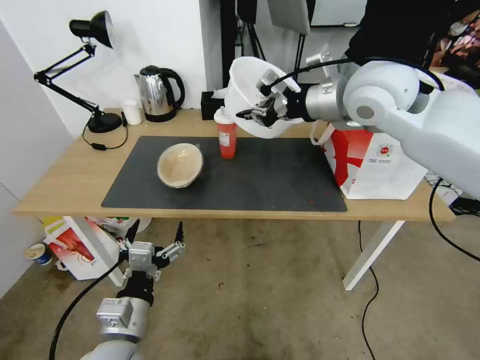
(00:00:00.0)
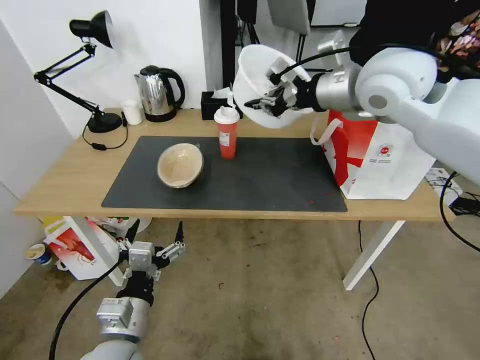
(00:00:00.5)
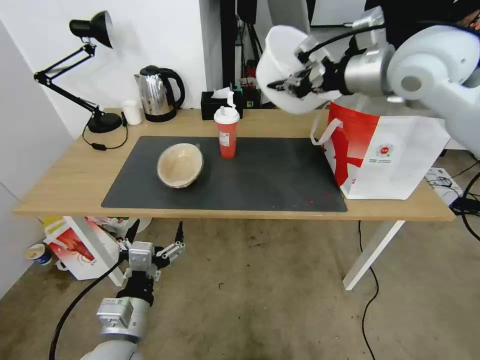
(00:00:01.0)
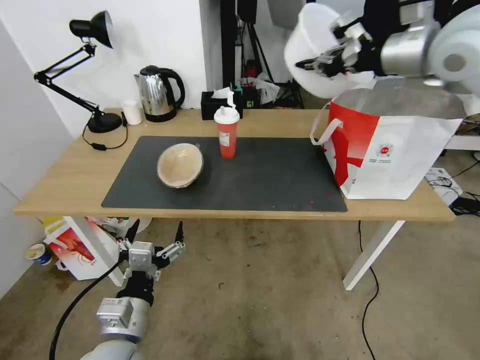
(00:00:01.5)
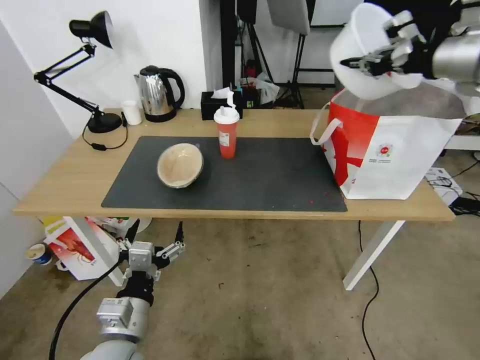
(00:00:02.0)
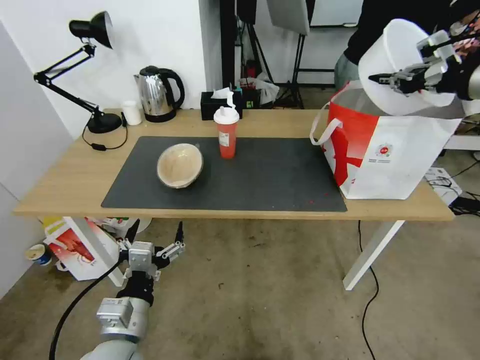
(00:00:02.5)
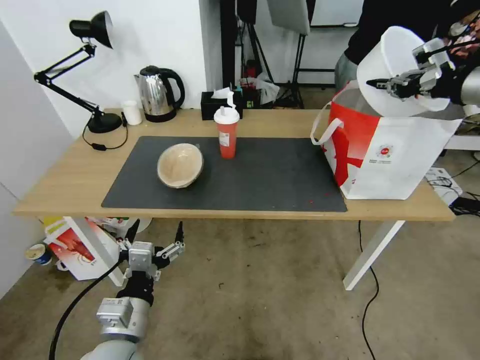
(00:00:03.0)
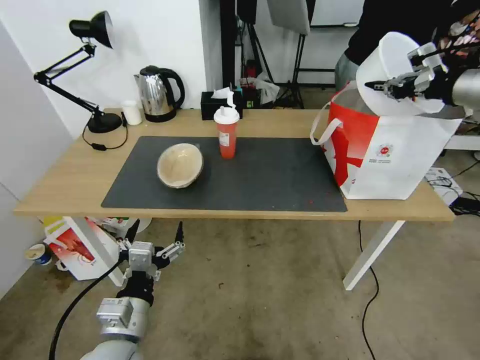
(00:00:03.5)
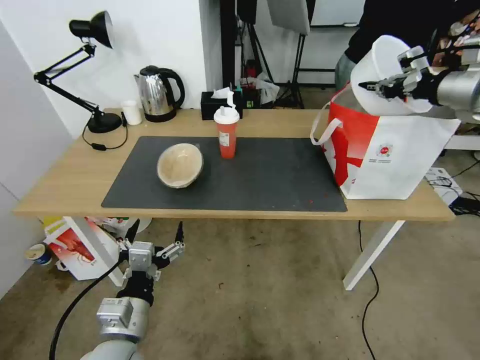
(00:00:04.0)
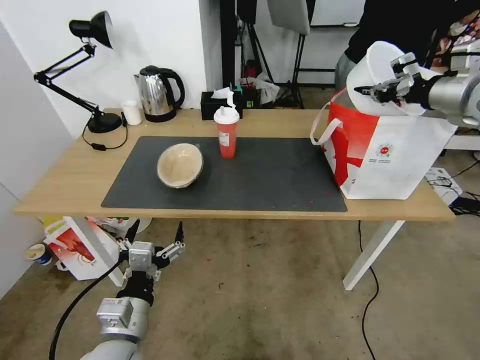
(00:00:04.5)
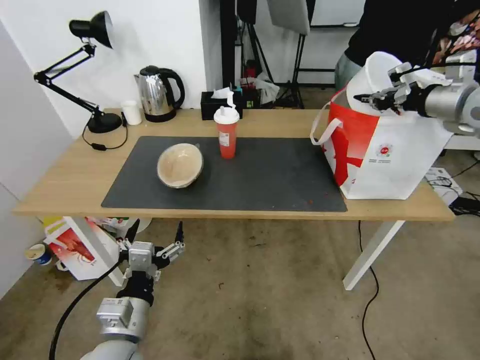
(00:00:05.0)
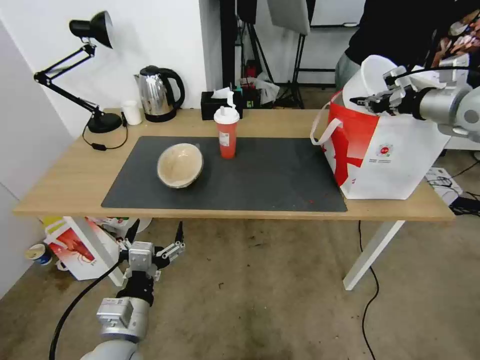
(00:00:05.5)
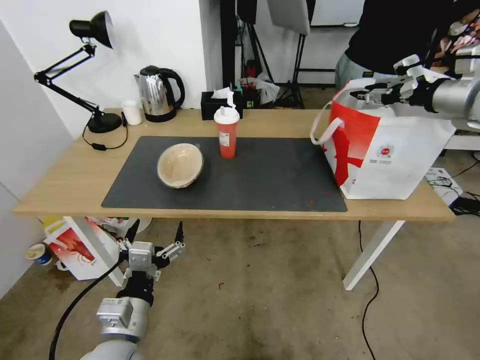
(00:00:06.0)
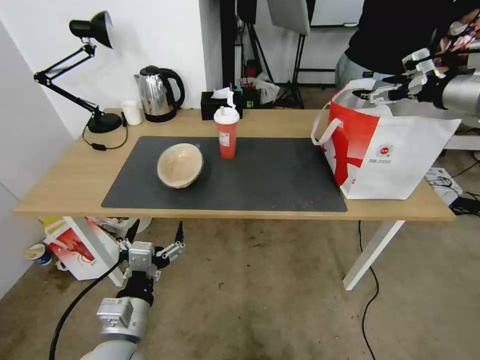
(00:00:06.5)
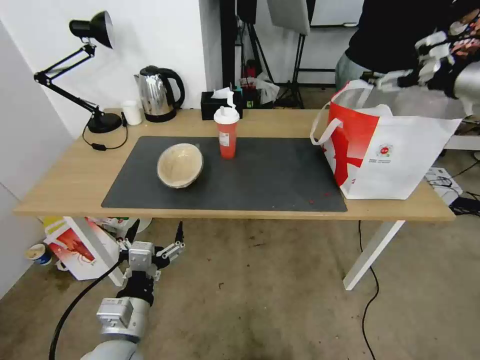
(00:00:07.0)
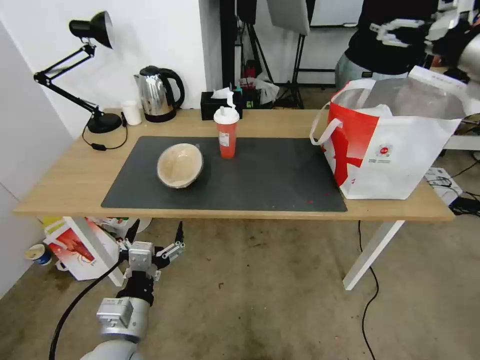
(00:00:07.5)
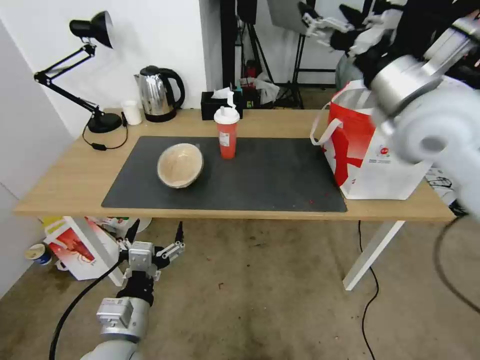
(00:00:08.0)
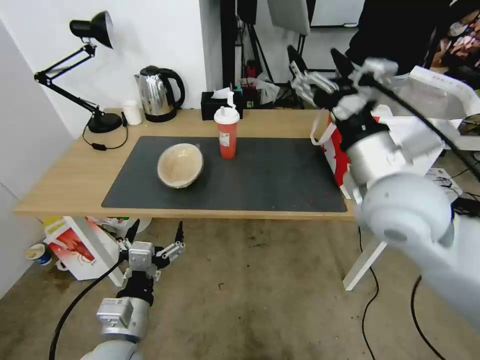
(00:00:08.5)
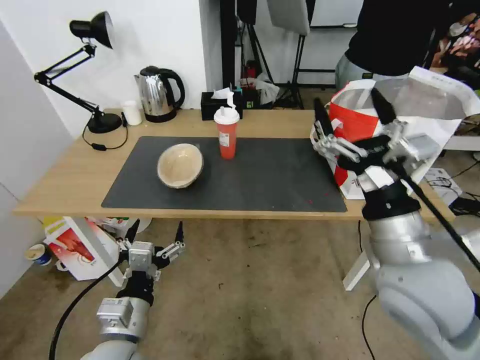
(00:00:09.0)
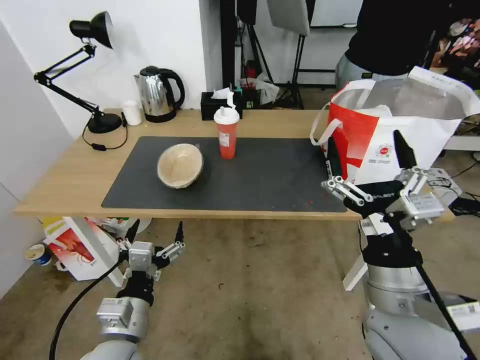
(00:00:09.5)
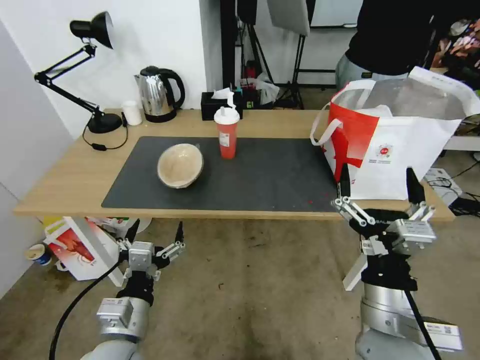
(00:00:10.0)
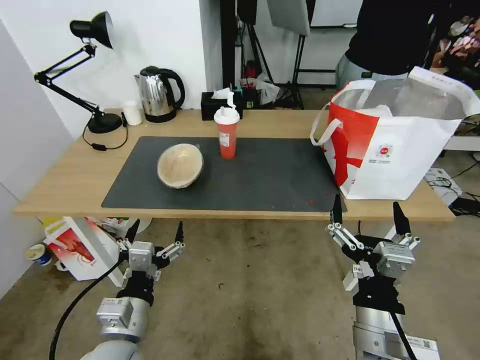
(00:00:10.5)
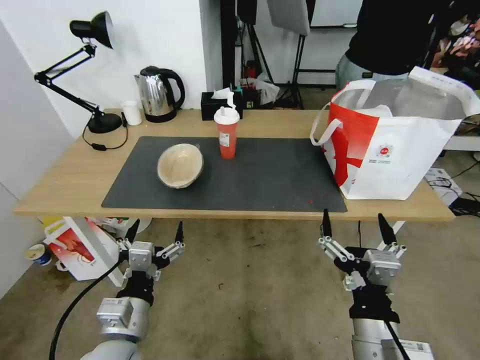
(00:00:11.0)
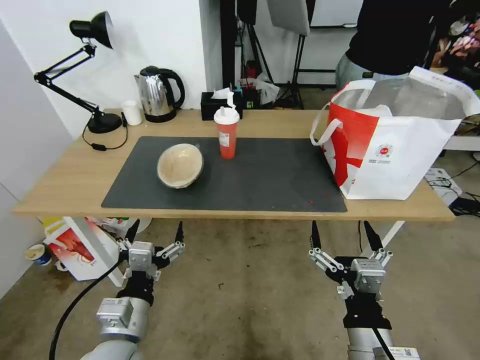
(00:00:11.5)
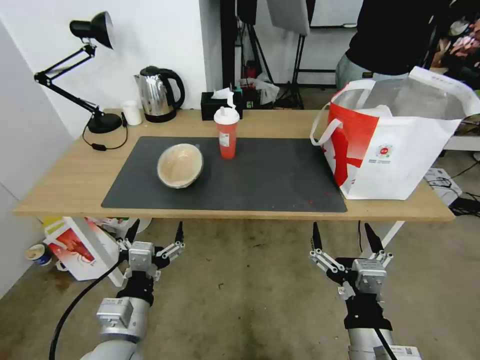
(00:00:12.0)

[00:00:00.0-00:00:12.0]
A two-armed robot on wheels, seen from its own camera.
Task of the whole recording: Pick up the trash from the table and place it into the takeout bag.
00:00:00.0 to 00:00:02.0: The right gripper shifts some 20 cm to the right.
00:00:02.0 to 00:00:04.0: The right gripper heads downward and to the right, covering roughly 10 cm.
00:00:04.0 to 00:00:06.0: The right gripper opens.
00:00:06.0 to 00:00:08.0: The right gripper shifts some 20 cm to the left and backward, and opens its fingers.
00:00:08.0 to 00:00:10.0: The right gripper travels downward and backward by approximately 35 cm.
00:00:10.0 to 00:00:12.0: The right gripper travels backward by about 5 cm.

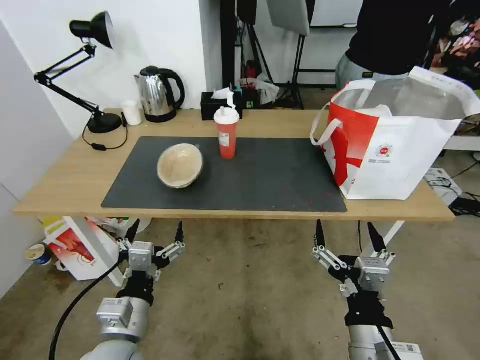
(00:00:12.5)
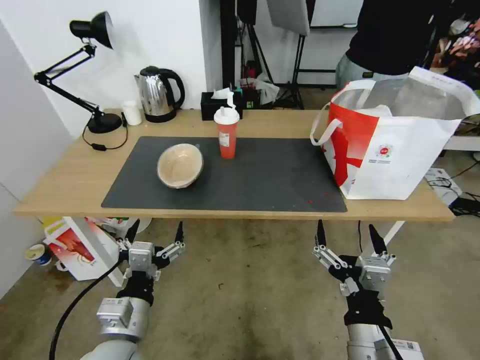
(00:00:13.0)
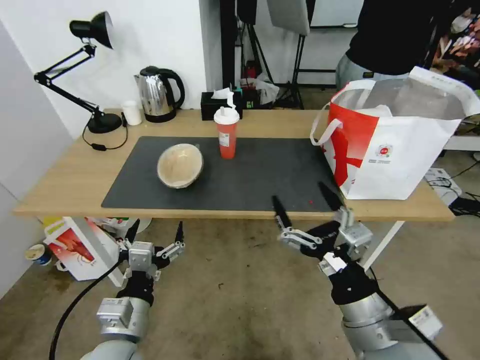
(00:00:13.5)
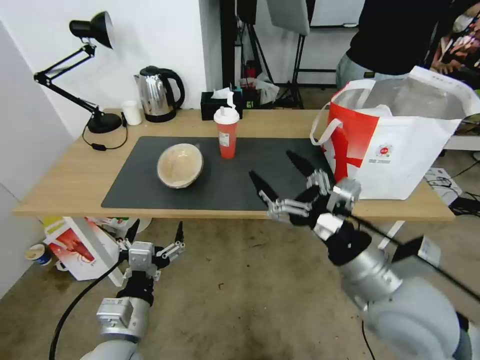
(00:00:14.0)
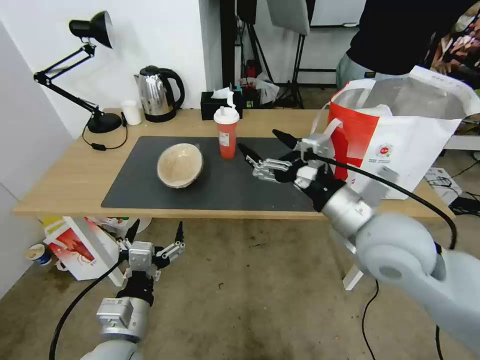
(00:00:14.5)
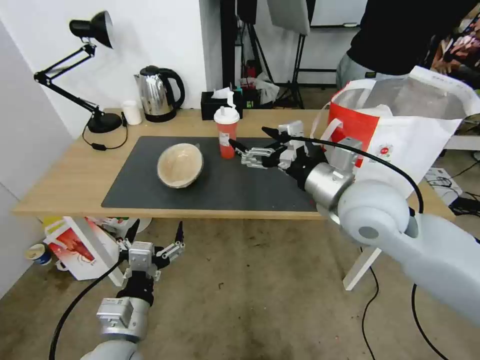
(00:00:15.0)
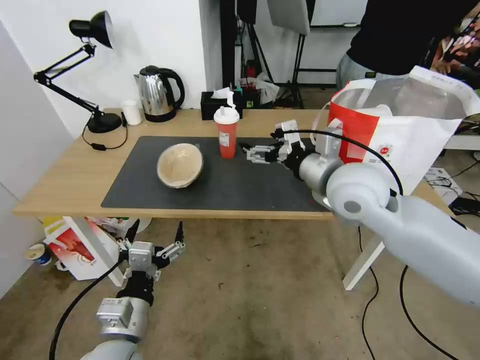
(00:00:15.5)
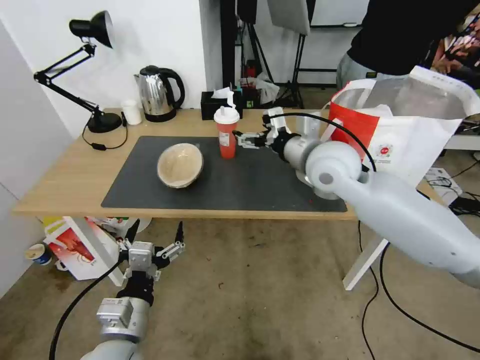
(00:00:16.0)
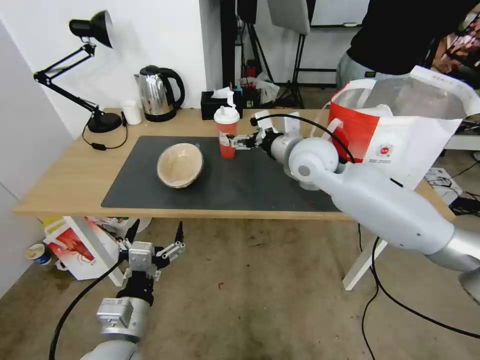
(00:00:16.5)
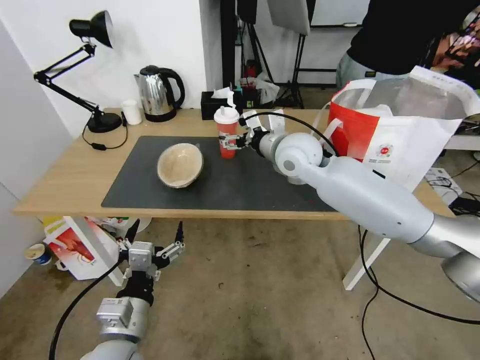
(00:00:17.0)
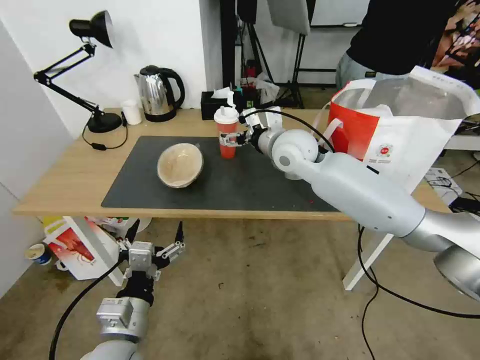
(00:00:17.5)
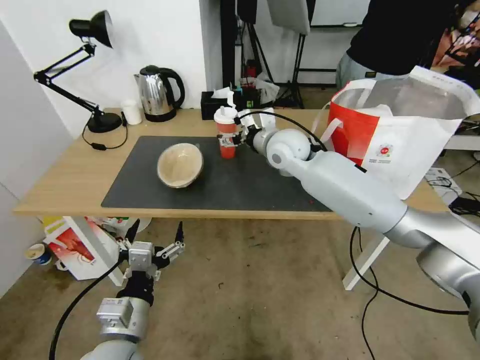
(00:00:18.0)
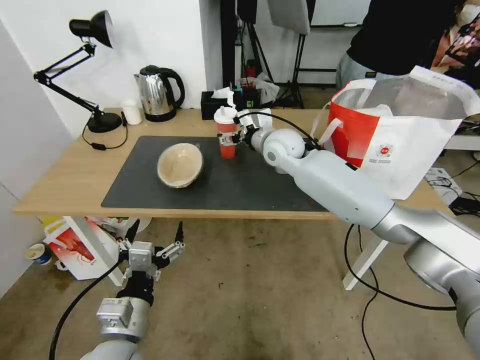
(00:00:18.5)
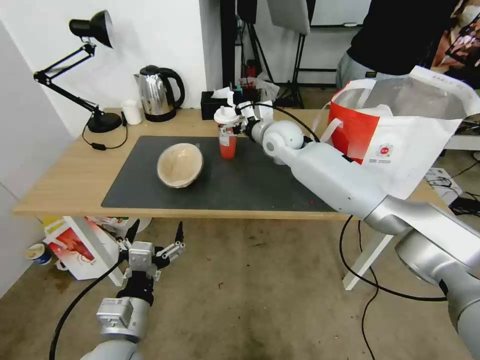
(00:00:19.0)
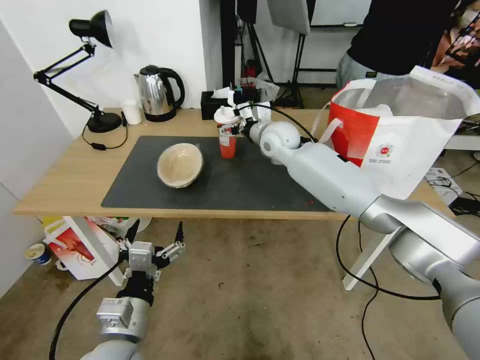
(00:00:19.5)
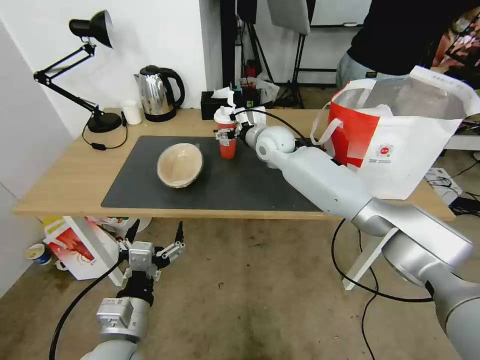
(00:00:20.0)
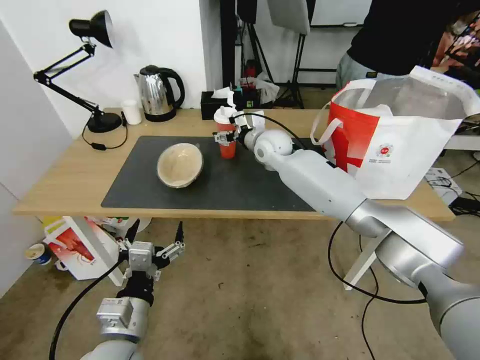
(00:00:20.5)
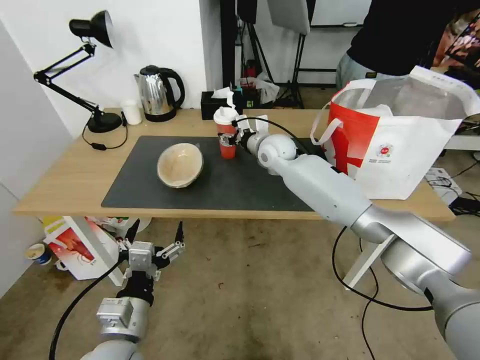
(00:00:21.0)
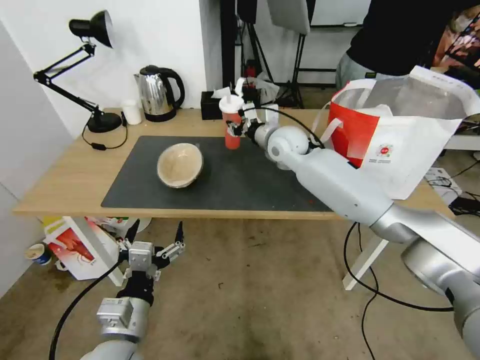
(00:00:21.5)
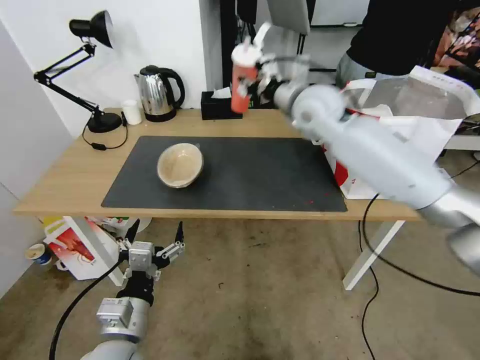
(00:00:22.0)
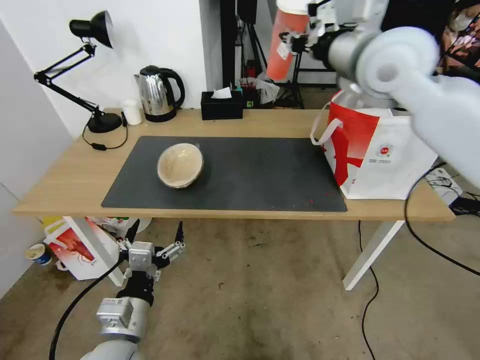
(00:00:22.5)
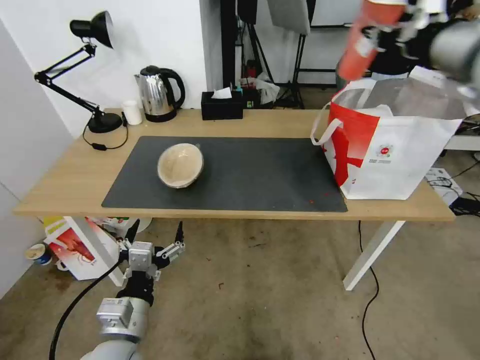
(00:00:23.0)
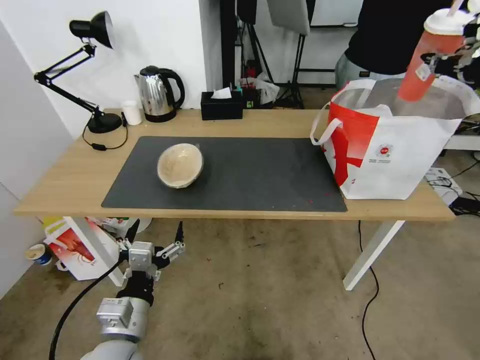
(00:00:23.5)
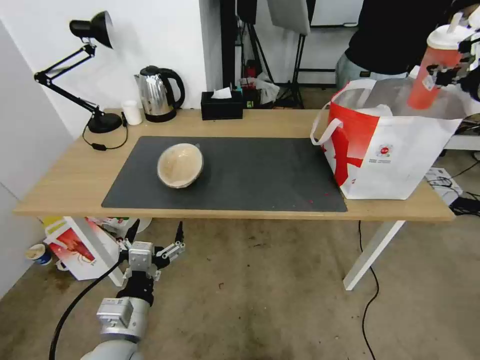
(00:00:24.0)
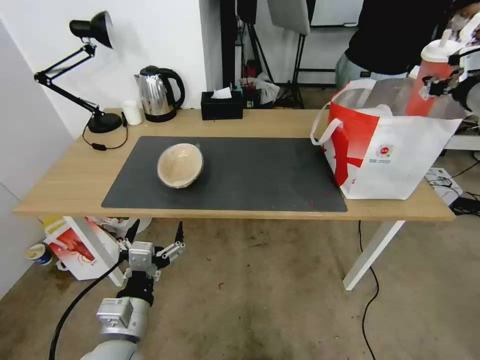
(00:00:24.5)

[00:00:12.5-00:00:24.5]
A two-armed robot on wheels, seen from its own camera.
Task of the whole recording: Pick up the trash from the table and place it into the takeout bag.
00:00:12.5 to 00:00:14.5: The right gripper goes roughly 20 cm forward and upward.
00:00:14.5 to 00:00:16.5: The right gripper goes approximately 20 cm forward.
00:00:16.5 to 00:00:18.5: The right gripper heads forward, covering about 10 cm.
00:00:18.5 to 00:00:20.5: The right gripper moves about 5 cm.
00:00:20.5 to 00:00:22.5: The right gripper moves upward, to the right and backward, approximately 30 cm, and closes up.
00:00:22.5 to 00:00:24.5: The right gripper moves to the right, roughly 20 cm.

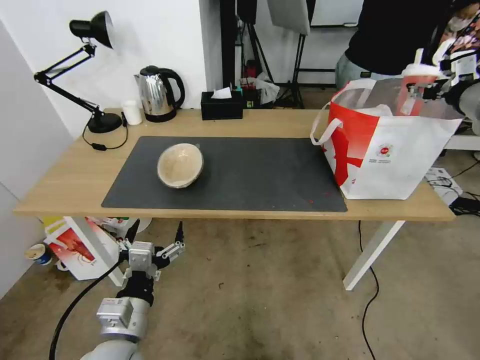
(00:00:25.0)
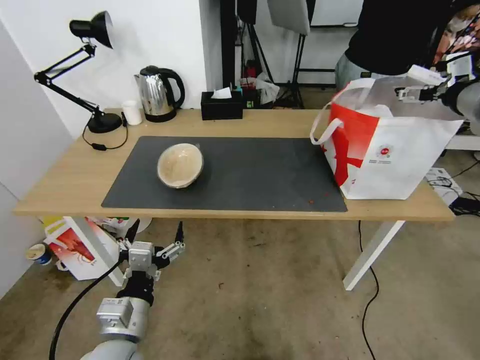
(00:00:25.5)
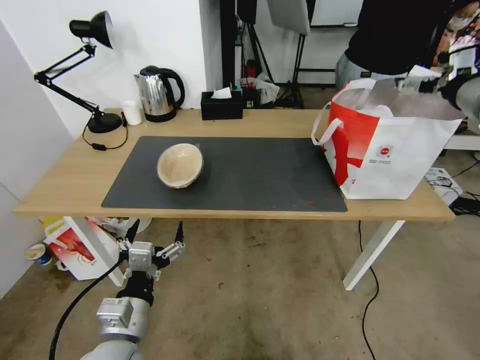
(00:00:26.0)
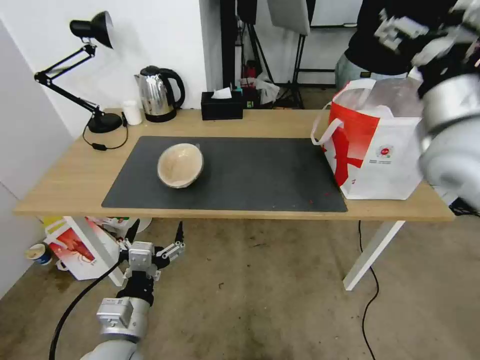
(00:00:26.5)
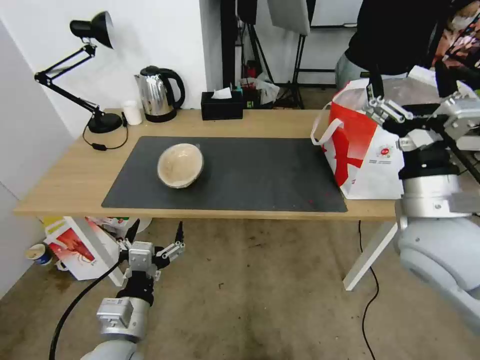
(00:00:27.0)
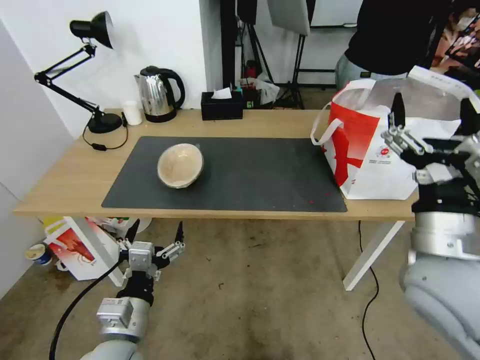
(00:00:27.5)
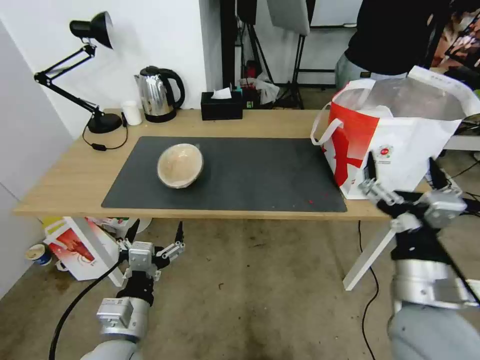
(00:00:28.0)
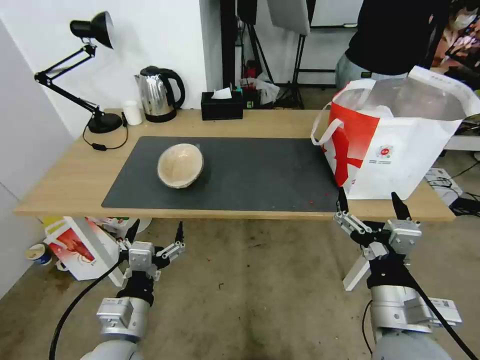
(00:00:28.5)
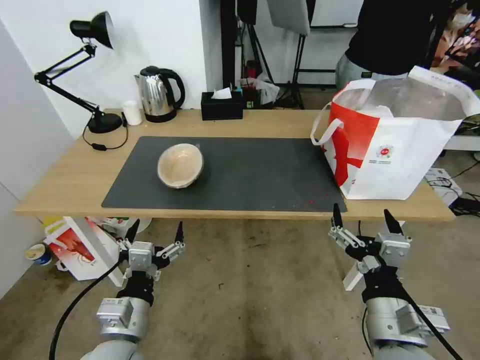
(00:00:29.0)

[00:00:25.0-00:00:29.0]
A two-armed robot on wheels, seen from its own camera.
Task of the whole recording: Pick up the trash from the table and place it into the takeout bag.
00:00:25.0 to 00:00:27.0: The right gripper goes roughly 25 cm backward, to the left and downward, and opens up.
00:00:27.0 to 00:00:29.0: The right gripper heads backward and downward, covering about 20 cm.
